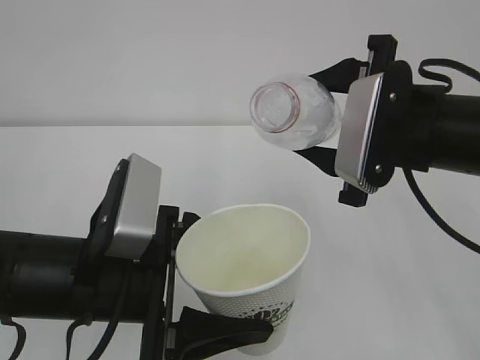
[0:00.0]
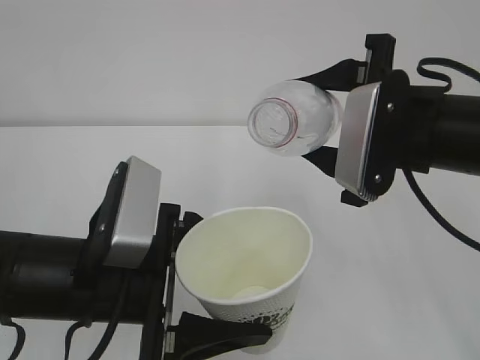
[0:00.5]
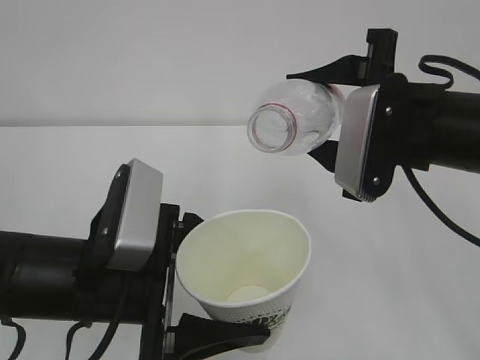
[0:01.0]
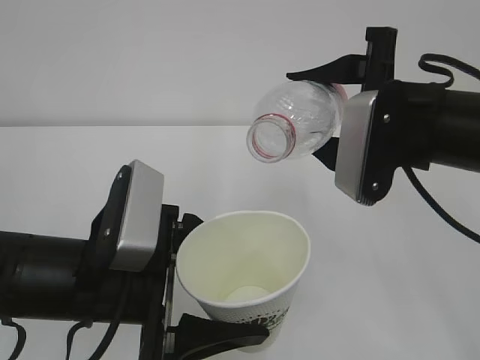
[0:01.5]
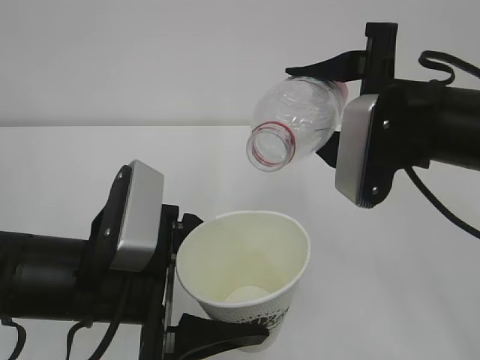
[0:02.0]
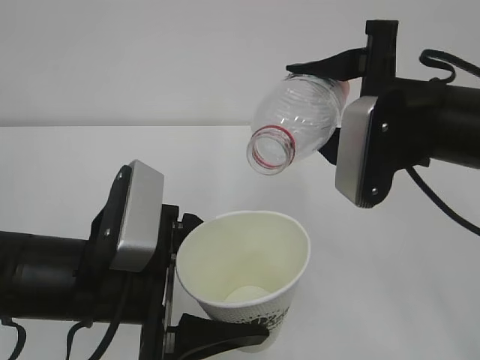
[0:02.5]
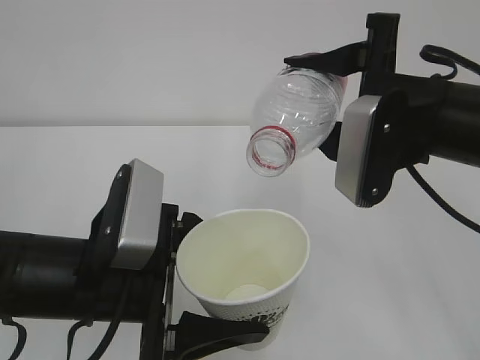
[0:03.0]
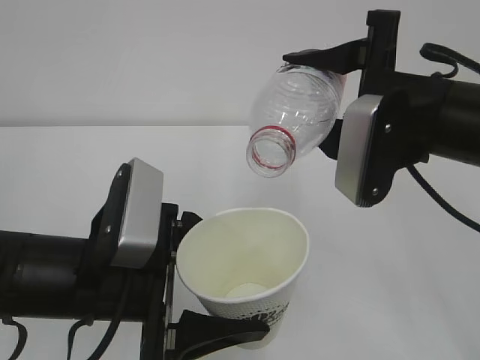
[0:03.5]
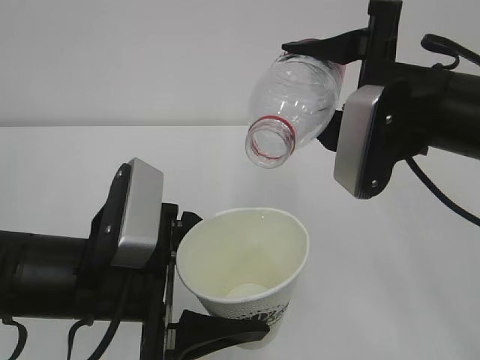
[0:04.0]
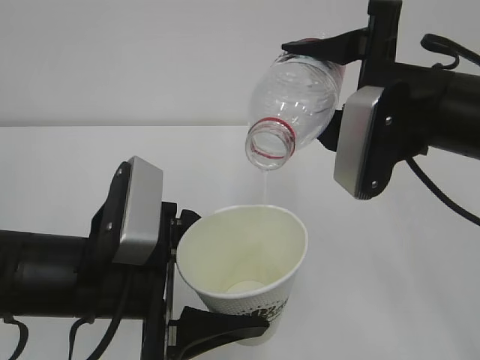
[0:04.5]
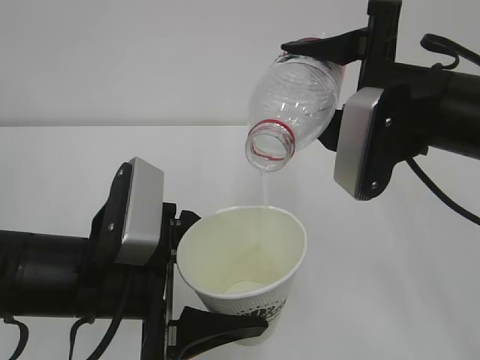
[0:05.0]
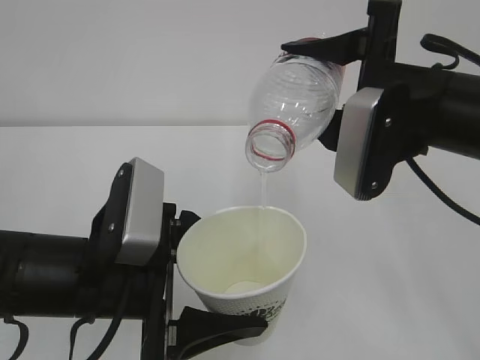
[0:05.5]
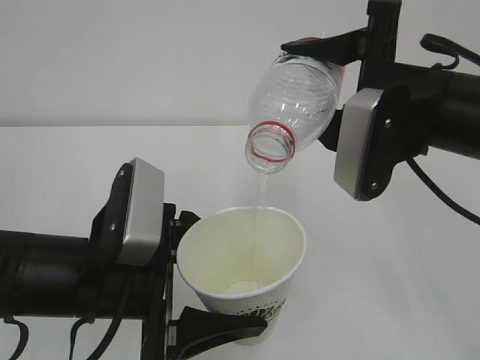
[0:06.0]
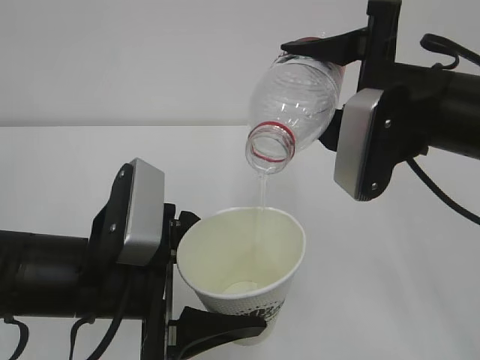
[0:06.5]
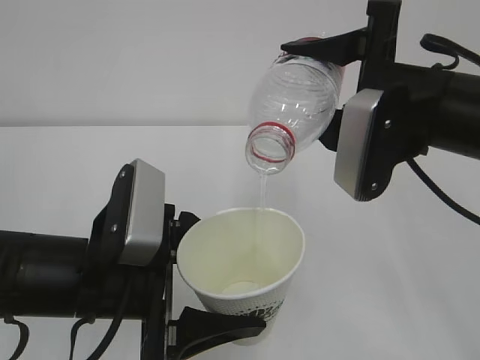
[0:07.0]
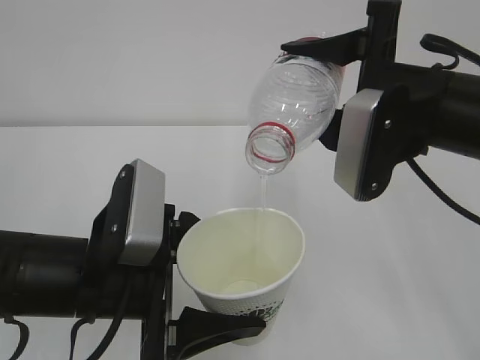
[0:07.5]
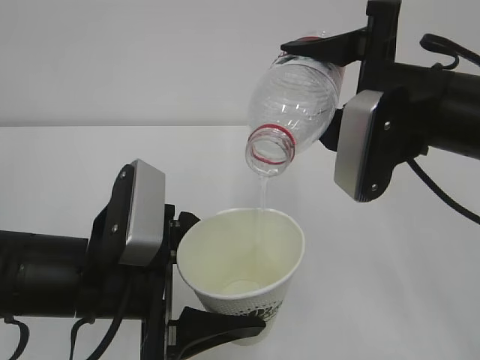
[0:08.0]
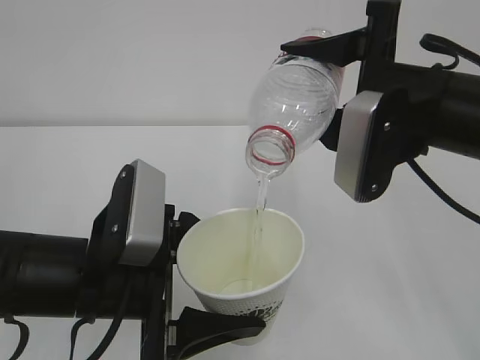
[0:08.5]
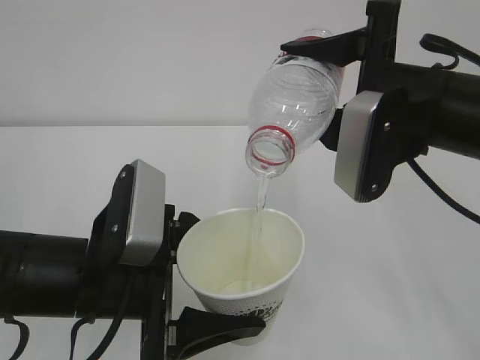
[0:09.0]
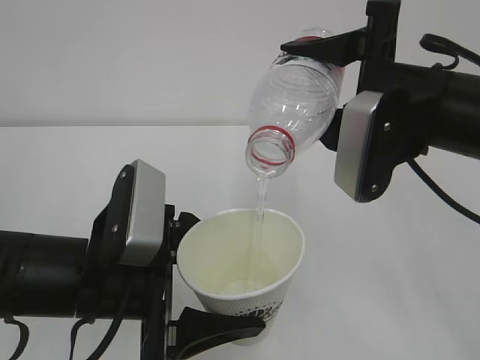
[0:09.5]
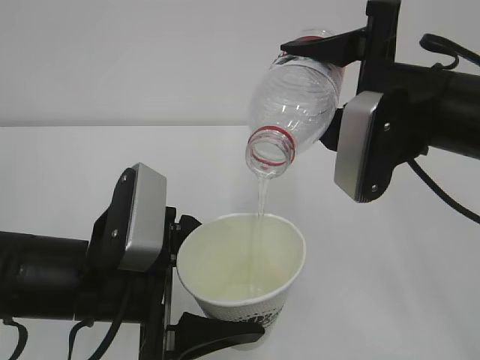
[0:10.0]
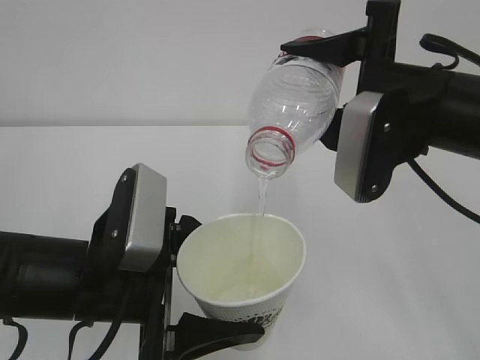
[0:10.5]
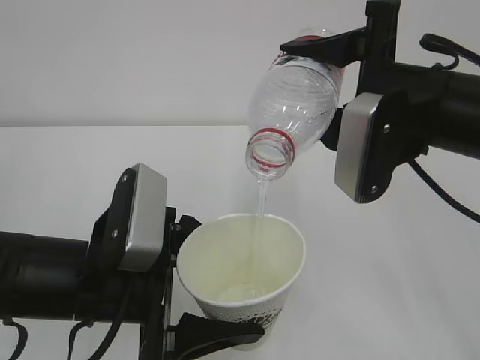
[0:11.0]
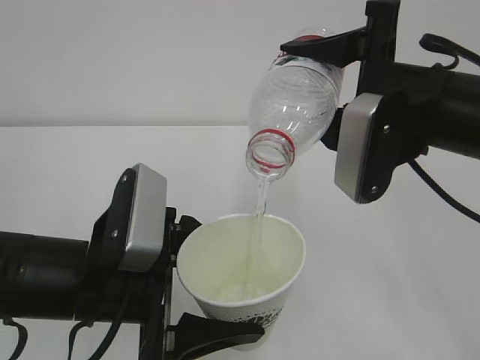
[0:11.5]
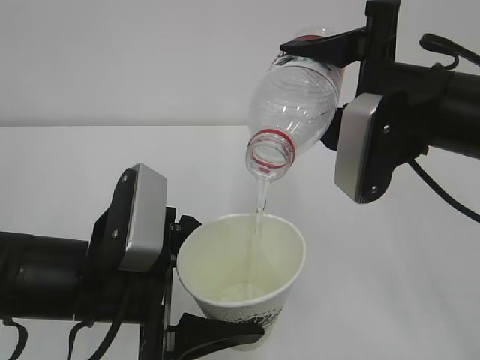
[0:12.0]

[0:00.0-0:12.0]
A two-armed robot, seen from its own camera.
0:00.0 to 0:02.0: The grippers move only a little.
0:02.0 to 0:04.0: The grippers make only small movements.
0:04.0 to 0:12.0: Both grippers stay put.

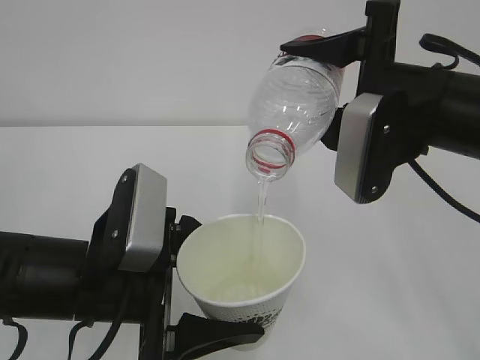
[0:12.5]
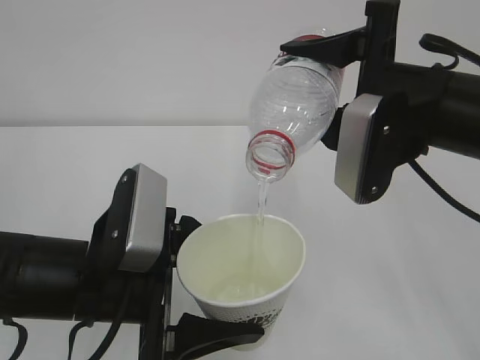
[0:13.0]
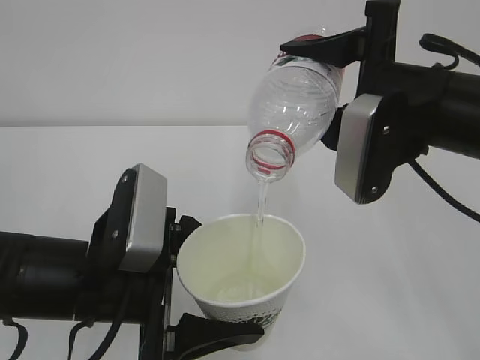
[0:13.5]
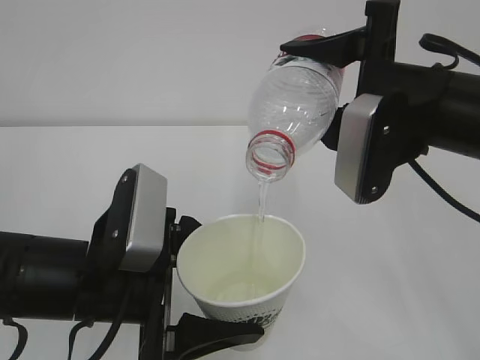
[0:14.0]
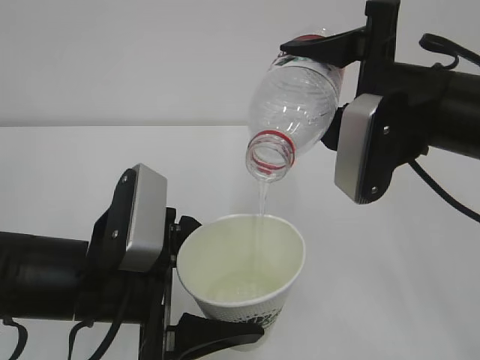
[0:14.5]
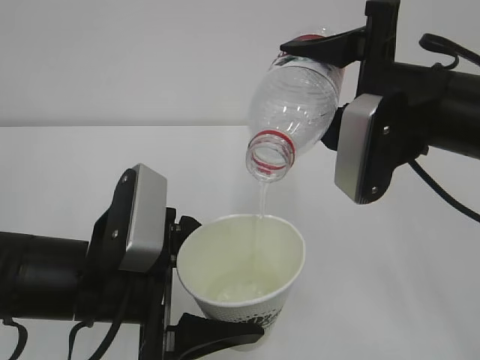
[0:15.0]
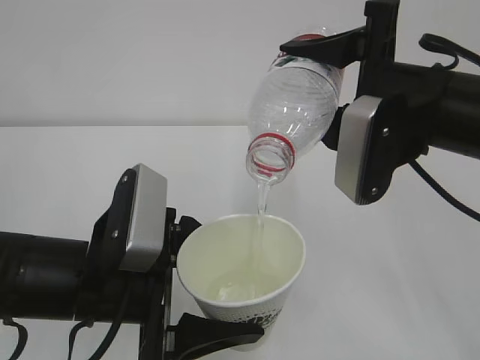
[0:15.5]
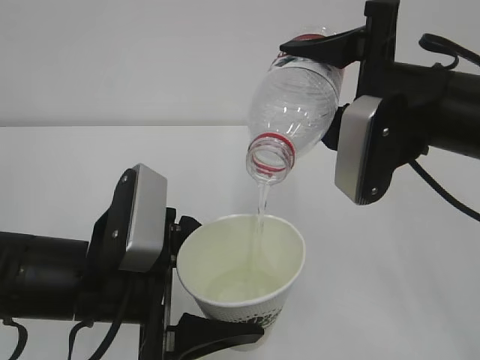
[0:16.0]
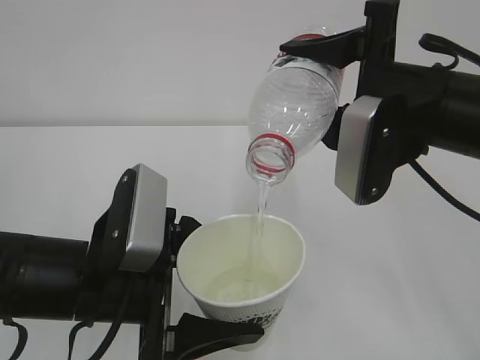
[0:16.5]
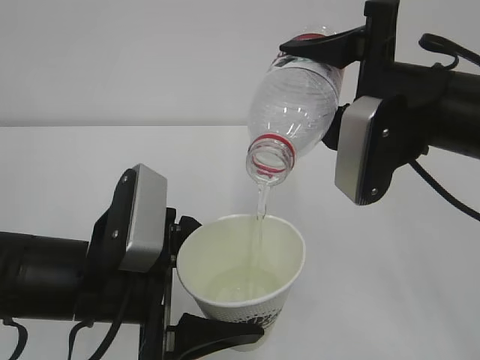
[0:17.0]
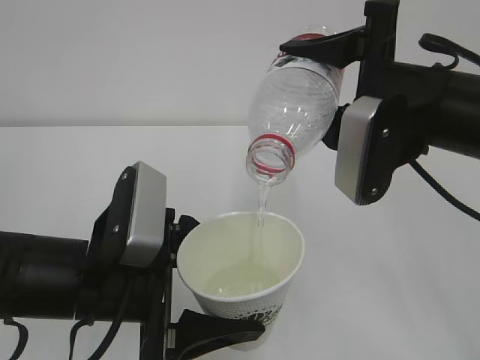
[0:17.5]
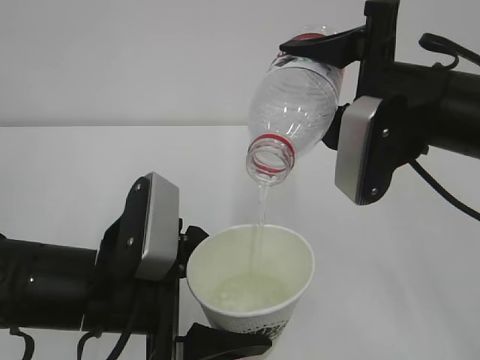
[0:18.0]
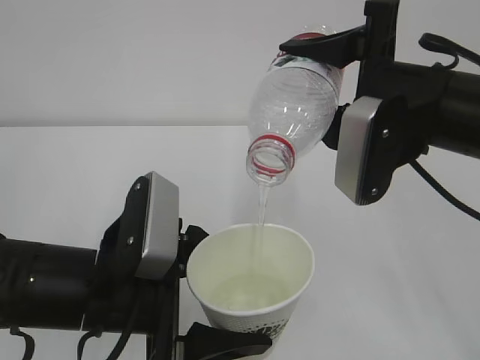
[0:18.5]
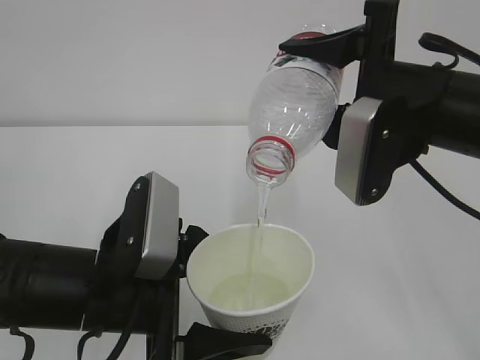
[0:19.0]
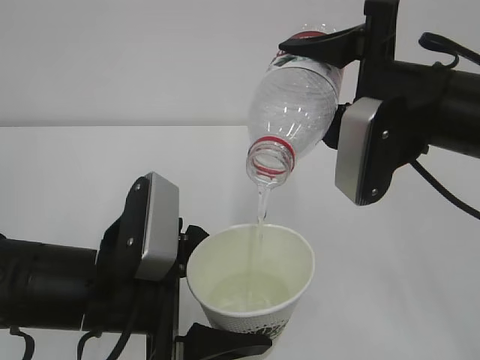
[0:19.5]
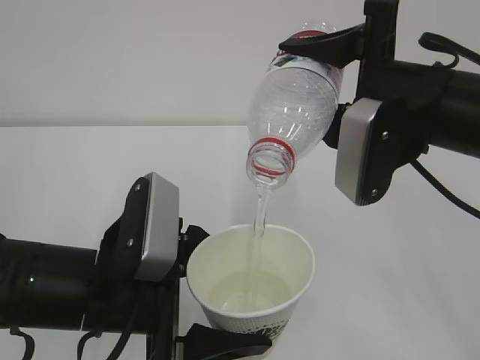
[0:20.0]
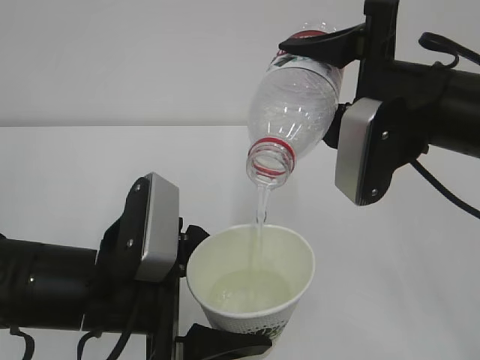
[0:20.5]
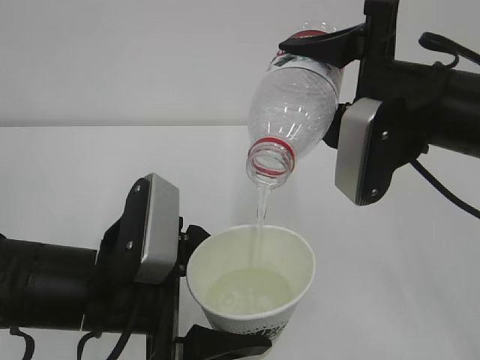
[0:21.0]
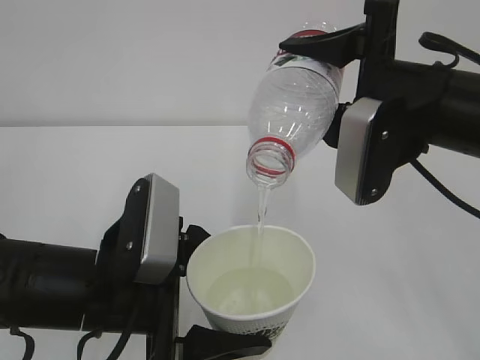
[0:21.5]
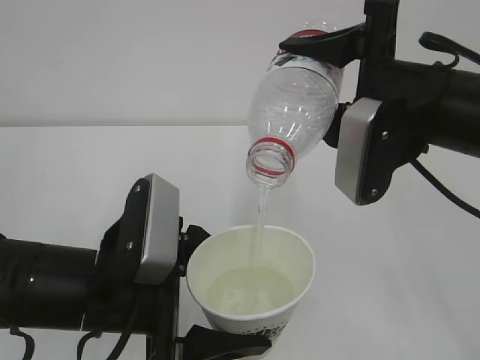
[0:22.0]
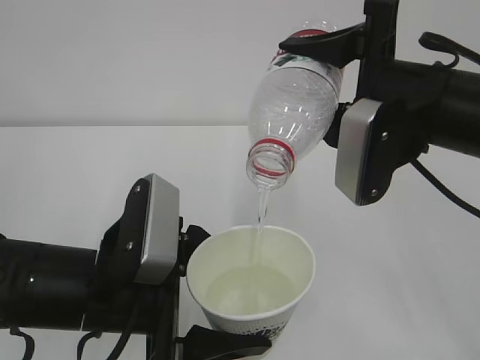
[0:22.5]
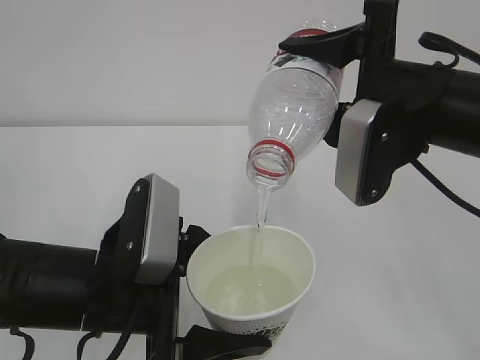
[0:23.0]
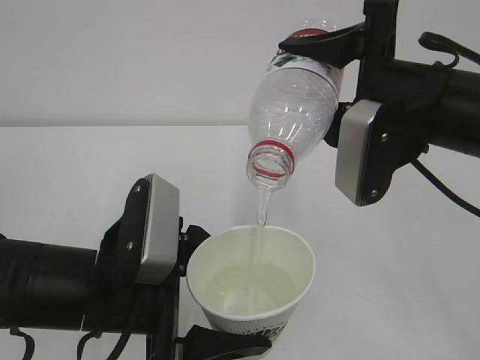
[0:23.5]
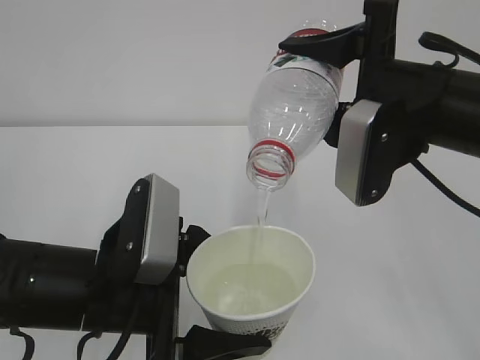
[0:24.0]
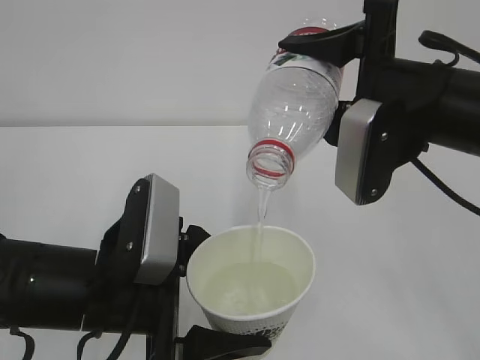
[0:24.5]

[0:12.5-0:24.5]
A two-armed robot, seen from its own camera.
0:12.5 to 0:22.5: Both grippers stay put.
0:22.5 to 0:24.5: Both grippers stay about where they are.

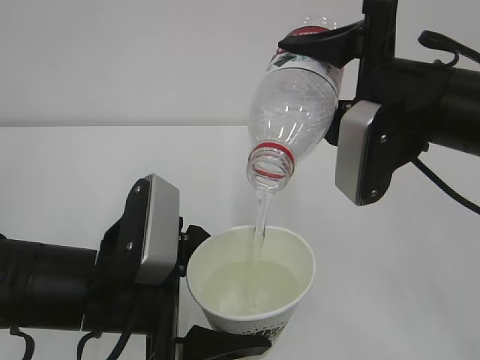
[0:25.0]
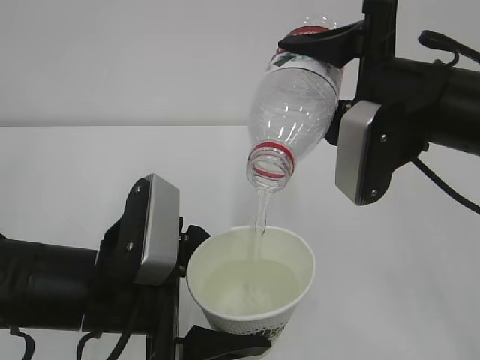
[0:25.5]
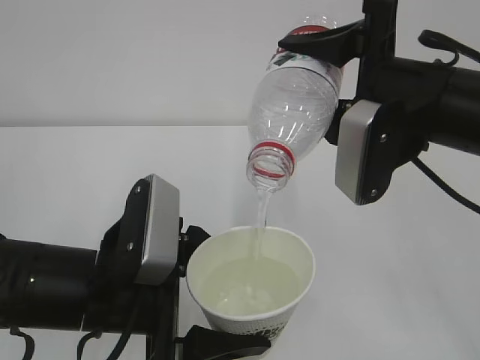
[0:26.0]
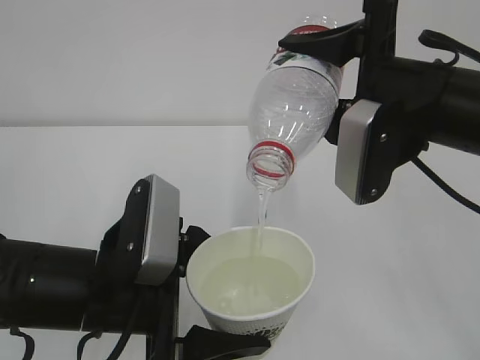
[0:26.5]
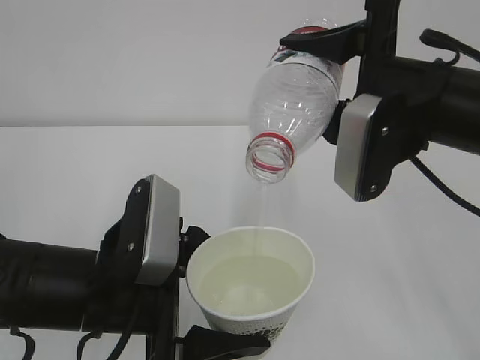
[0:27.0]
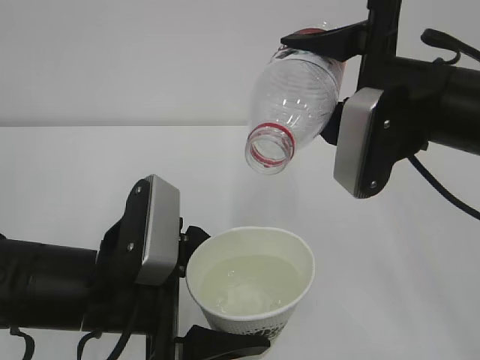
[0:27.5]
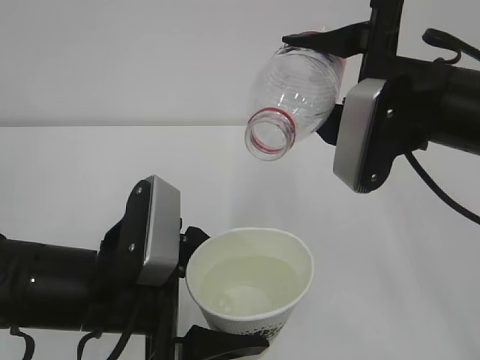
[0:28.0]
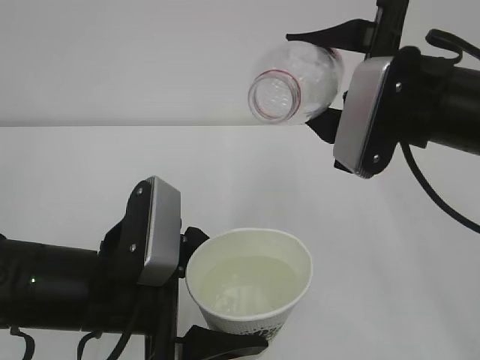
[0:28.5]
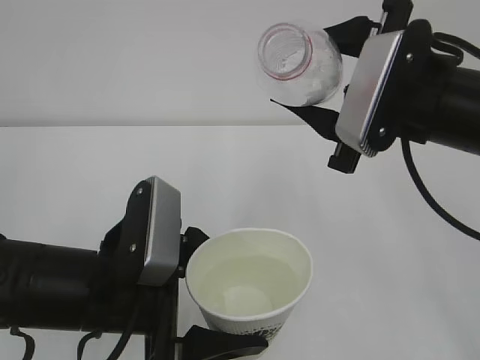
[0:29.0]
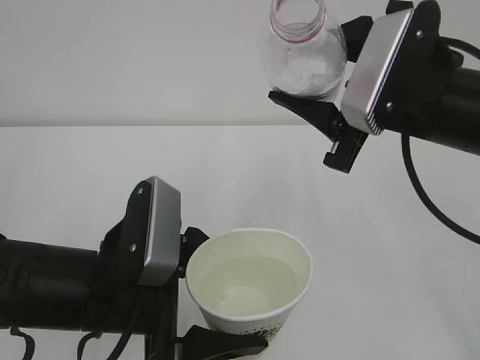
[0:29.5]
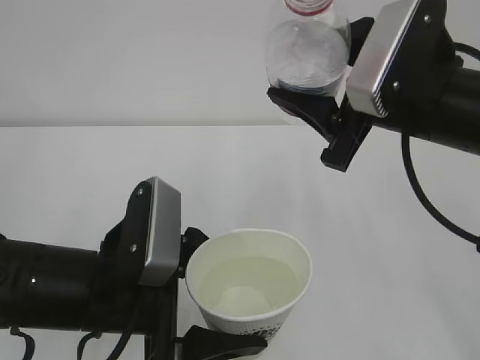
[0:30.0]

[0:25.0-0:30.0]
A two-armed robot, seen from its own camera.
0:25.0 to 0:27.5: There are only small adjustments of the grippers.
